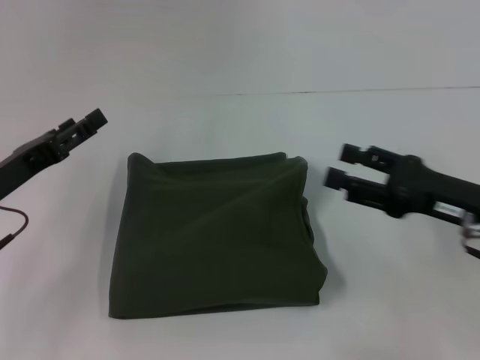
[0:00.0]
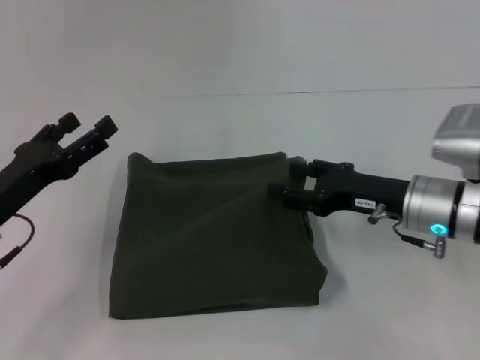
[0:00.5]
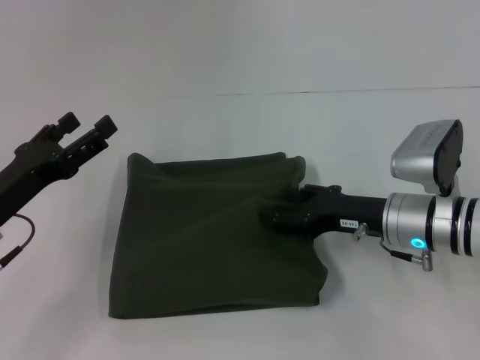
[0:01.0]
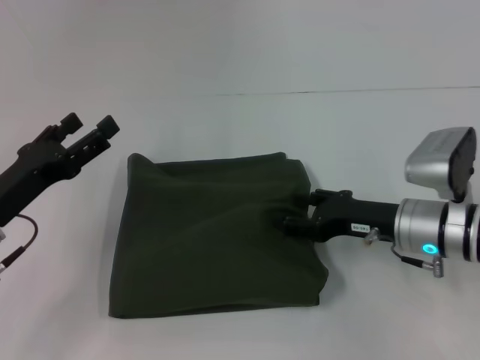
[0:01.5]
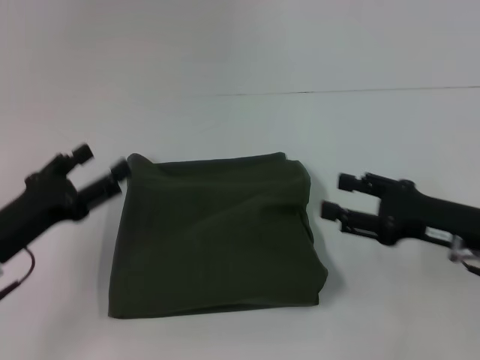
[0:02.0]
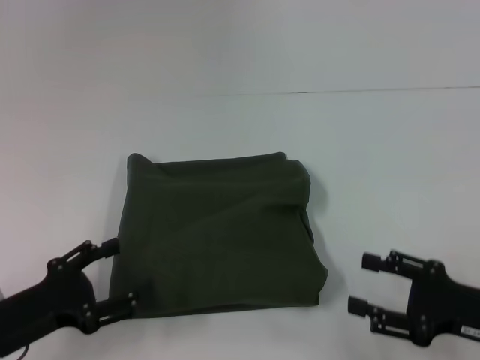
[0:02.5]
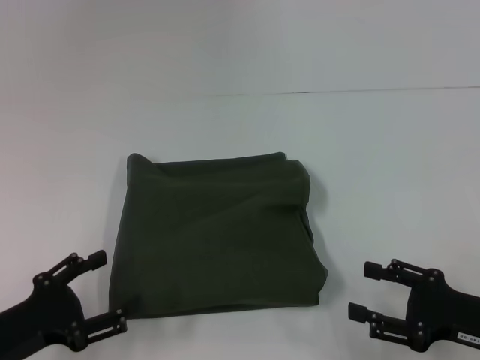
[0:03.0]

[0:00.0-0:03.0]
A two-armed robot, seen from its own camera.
0:00.0 to 0:01.5: The right gripper shifts approximately 5 cm to the left.
0:01.5 to 0:03.0: The left gripper moves backward, about 10 cm. Meanwhile the right gripper is displaced backward and to the right by some 15 cm.

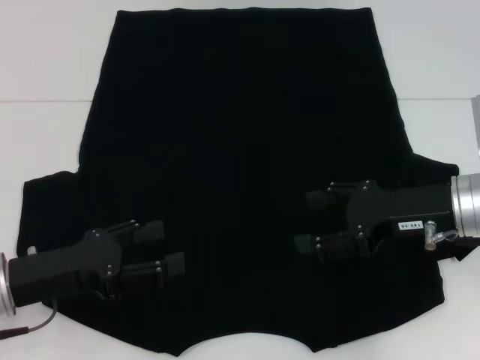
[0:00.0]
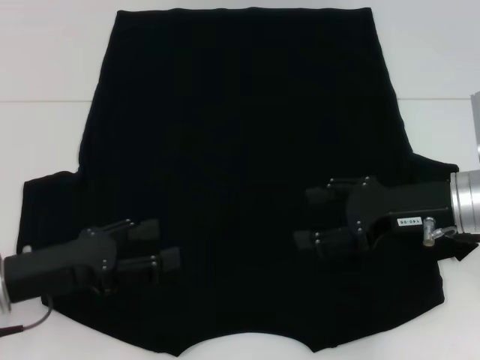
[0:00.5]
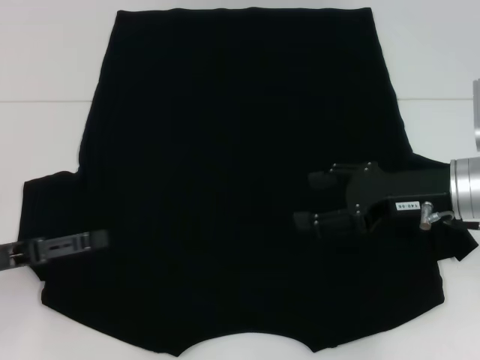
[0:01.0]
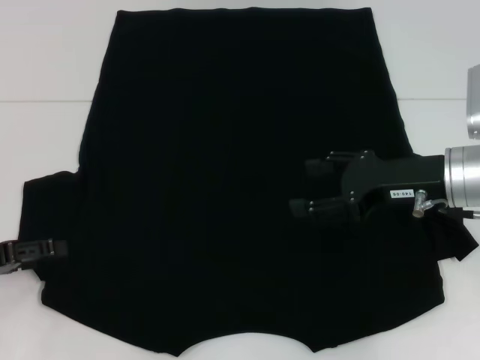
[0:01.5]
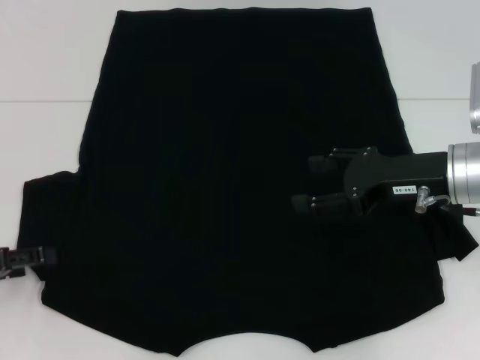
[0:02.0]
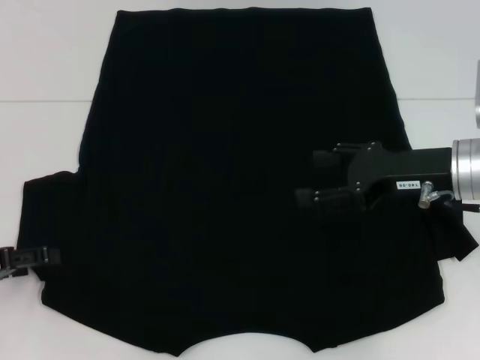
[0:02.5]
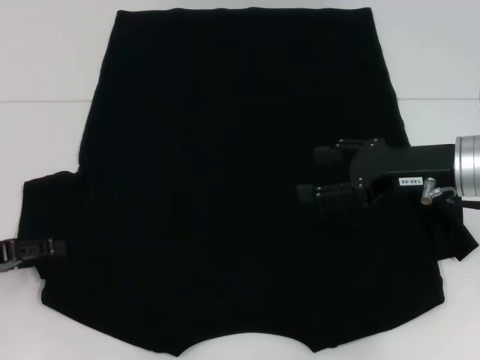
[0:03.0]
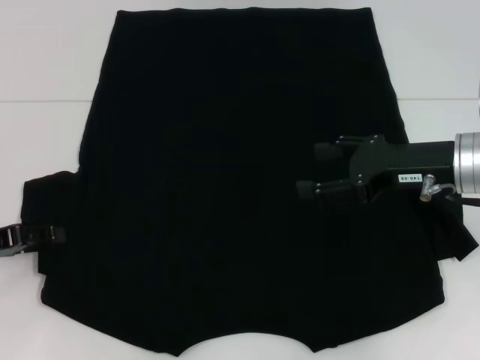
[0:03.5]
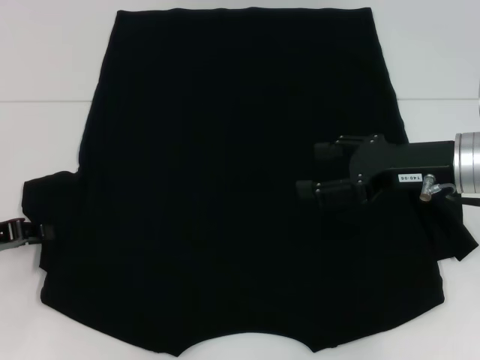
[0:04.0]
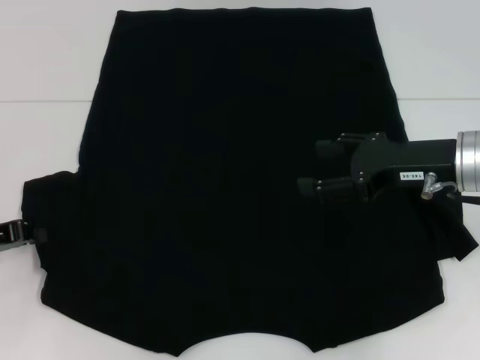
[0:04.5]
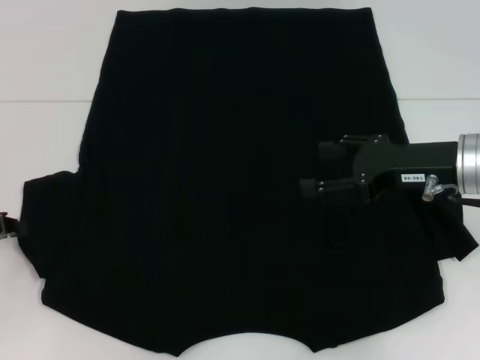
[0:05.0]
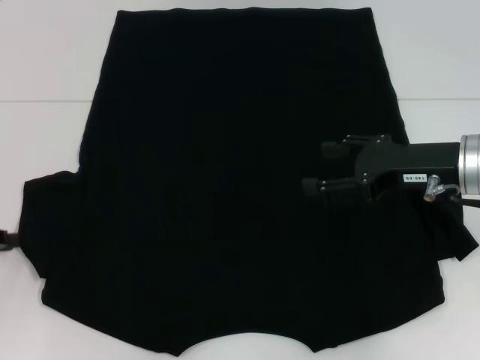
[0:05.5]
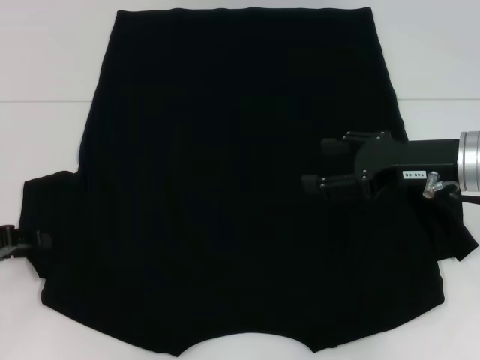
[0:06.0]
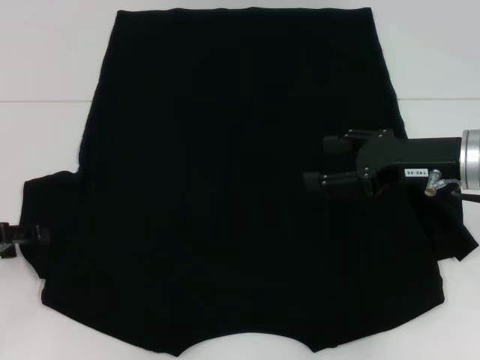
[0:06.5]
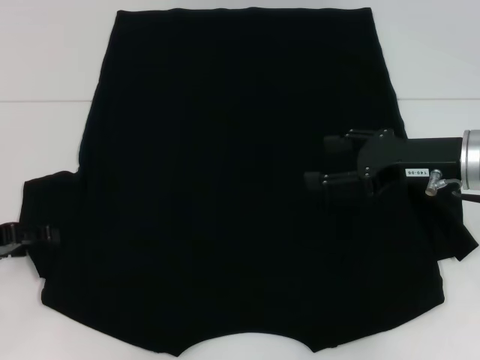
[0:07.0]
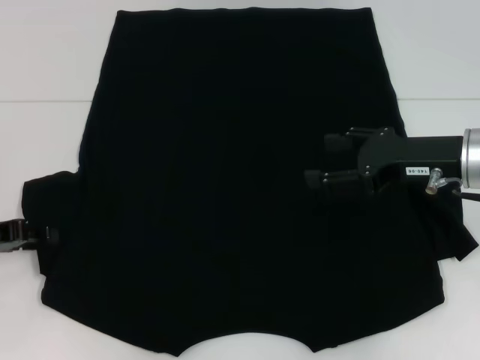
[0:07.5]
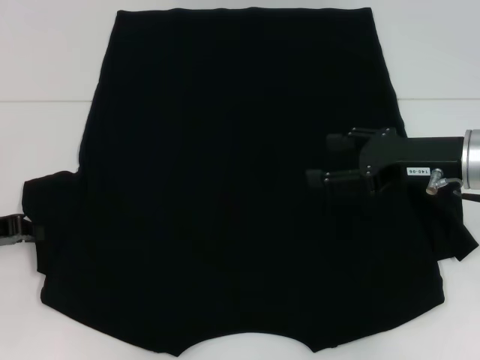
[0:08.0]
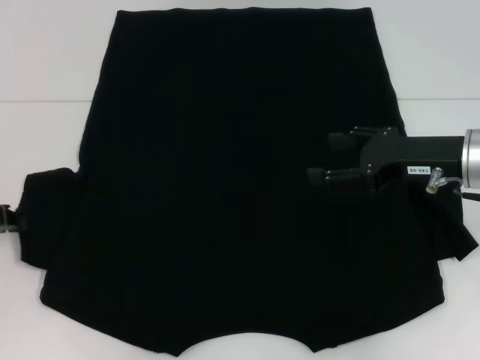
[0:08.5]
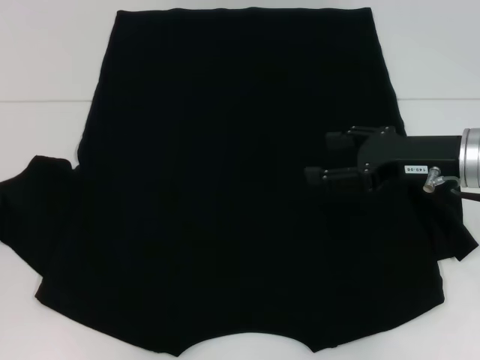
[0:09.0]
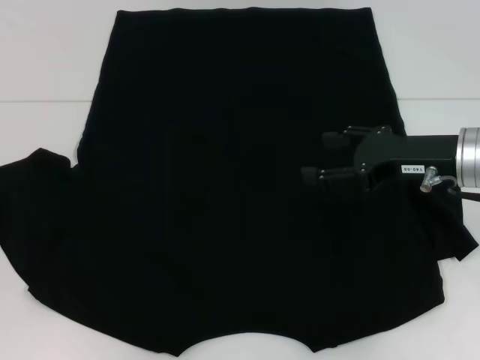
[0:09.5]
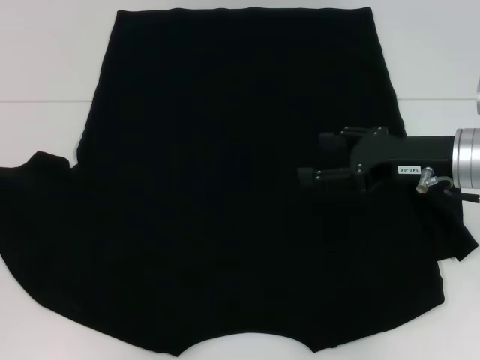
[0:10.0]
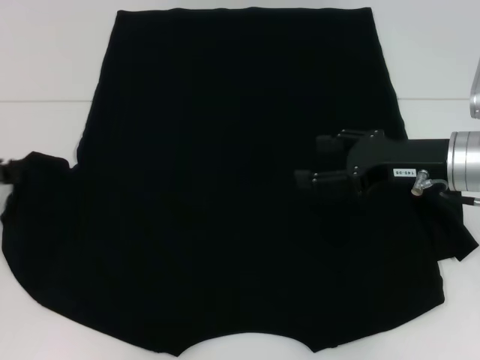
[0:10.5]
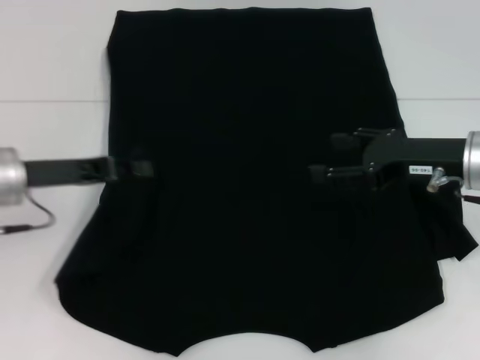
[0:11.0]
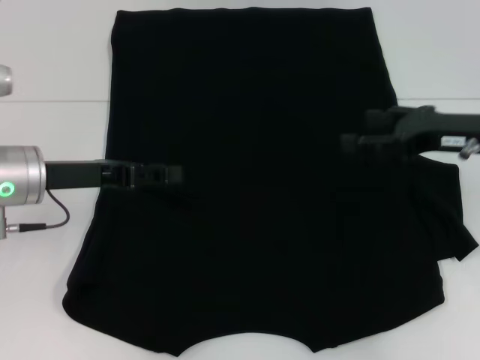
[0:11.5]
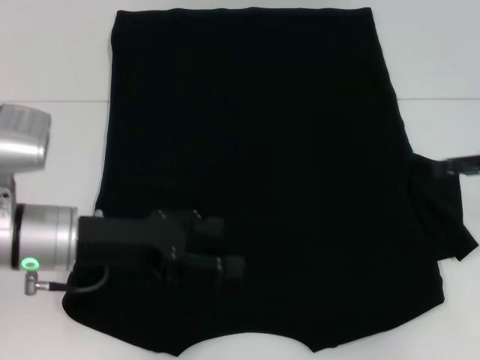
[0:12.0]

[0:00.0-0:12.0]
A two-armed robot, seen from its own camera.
Step, 0:00.0 to 0:11.5: Fold the bottom left sleeve with your left hand.
0:00.0 to 0:02.0: The left gripper moves to the left, about 10 cm.
0:02.0 to 0:04.0: The left gripper closes its fingers.
0:04.0 to 0:06.0: The left gripper closes, then opens again.
0:06.0 to 0:08.0: The left gripper opens, then closes once more.
0:08.0 to 0:10.0: The left gripper changes place by about 5 cm.
0:10.0 to 0:12.0: The grippers both shift to the right by roughly 15 cm. The left gripper opens up.

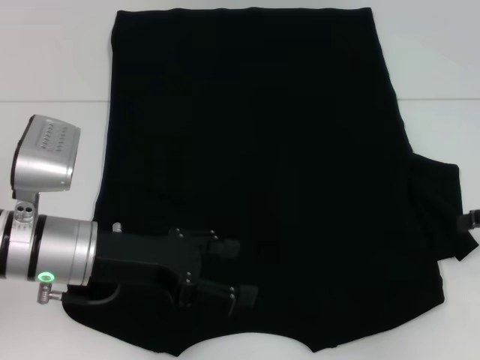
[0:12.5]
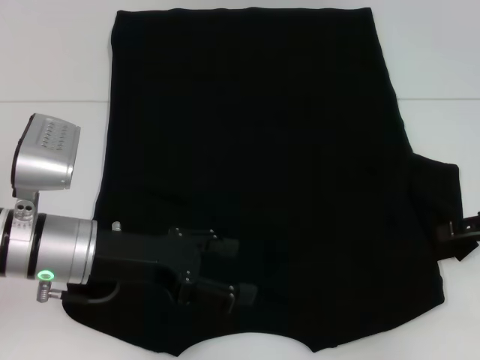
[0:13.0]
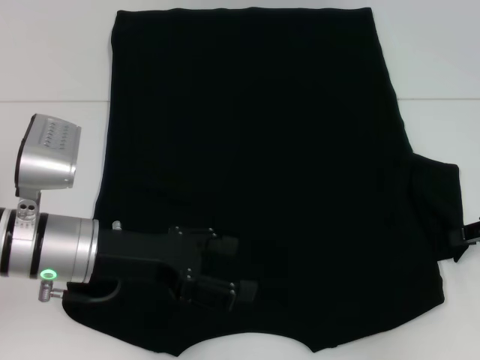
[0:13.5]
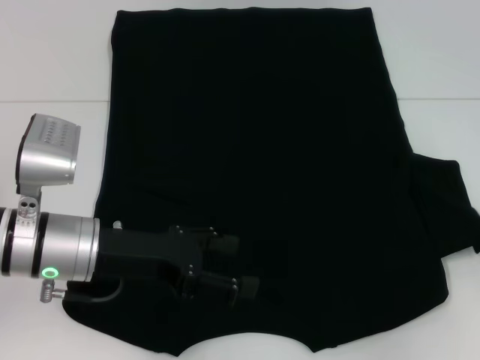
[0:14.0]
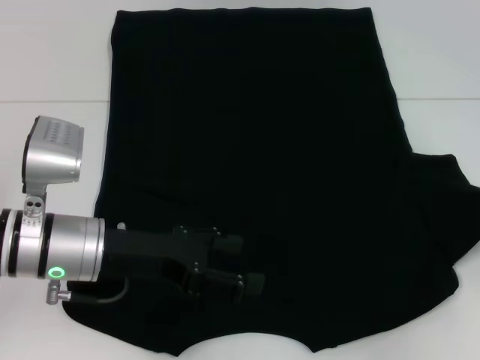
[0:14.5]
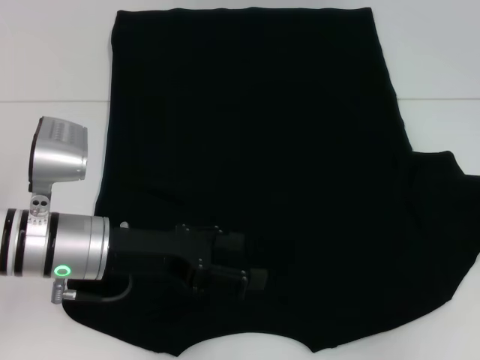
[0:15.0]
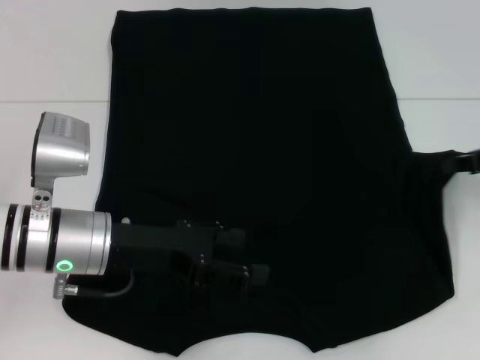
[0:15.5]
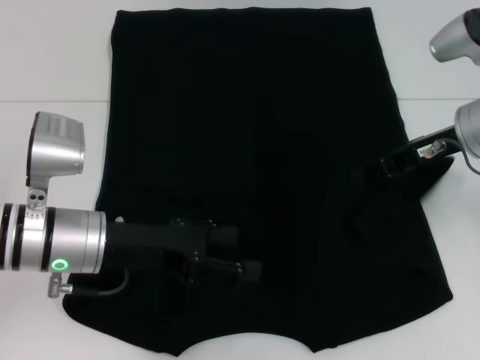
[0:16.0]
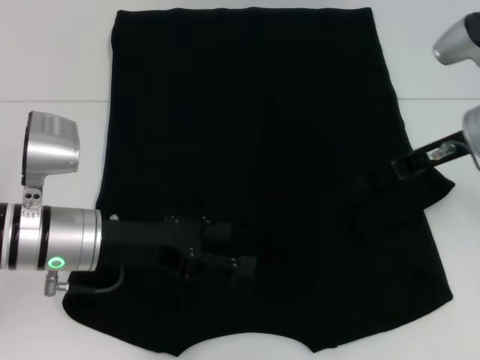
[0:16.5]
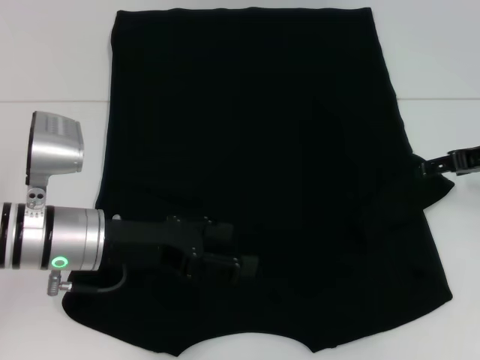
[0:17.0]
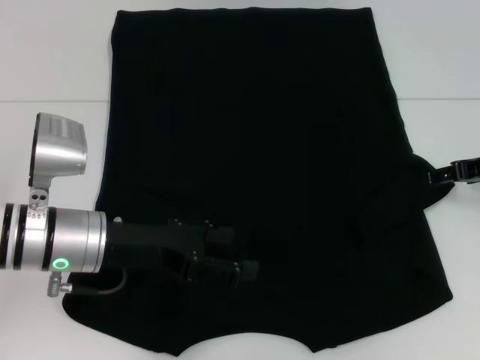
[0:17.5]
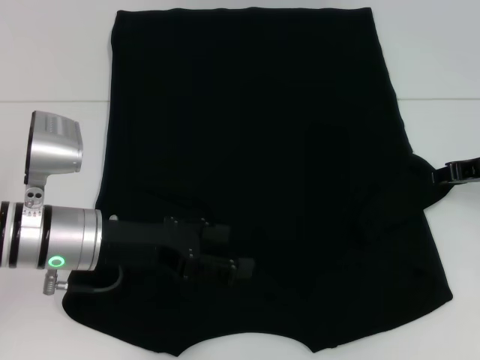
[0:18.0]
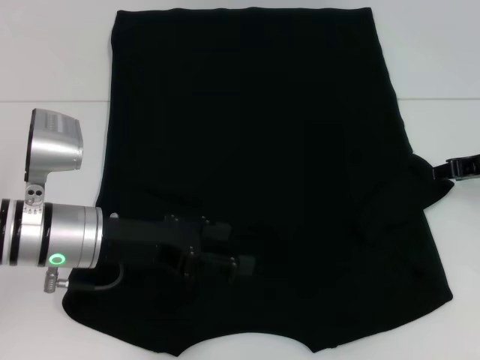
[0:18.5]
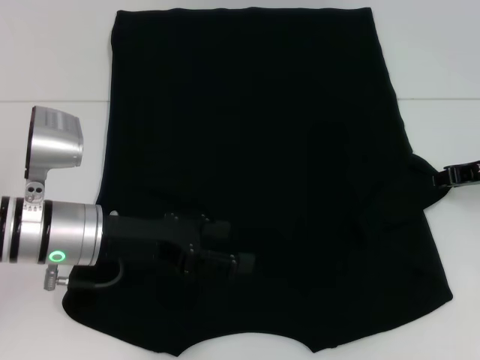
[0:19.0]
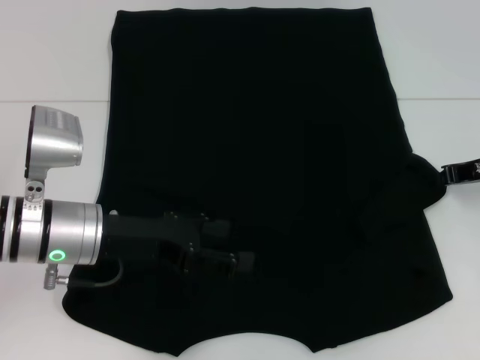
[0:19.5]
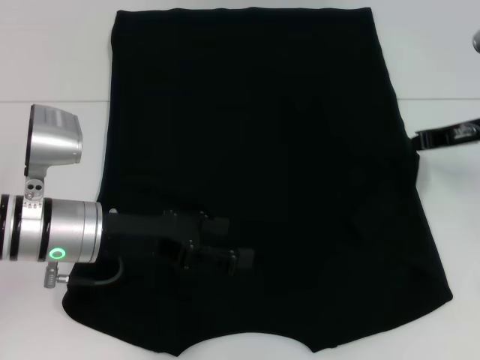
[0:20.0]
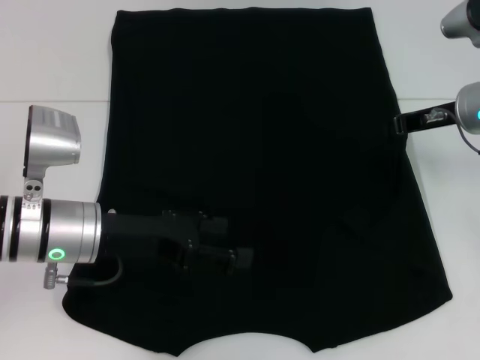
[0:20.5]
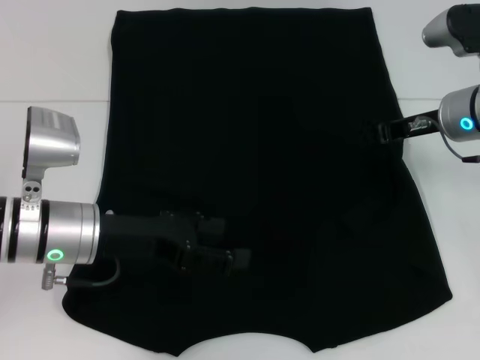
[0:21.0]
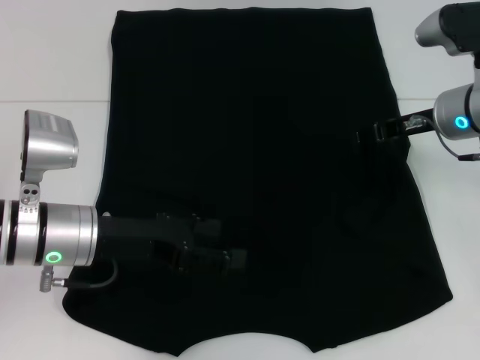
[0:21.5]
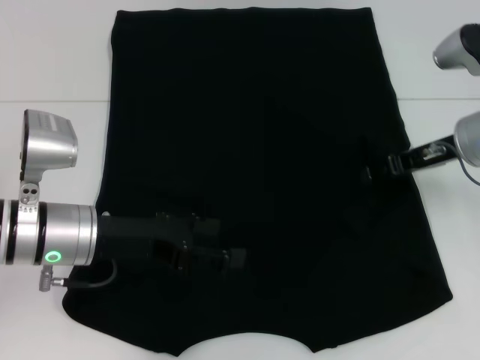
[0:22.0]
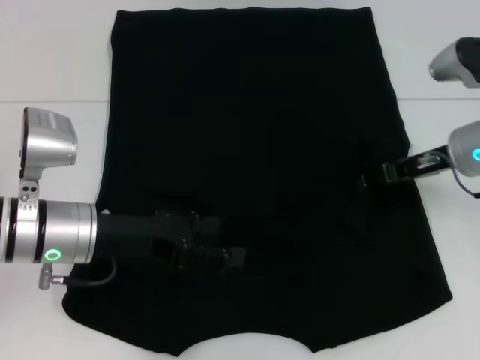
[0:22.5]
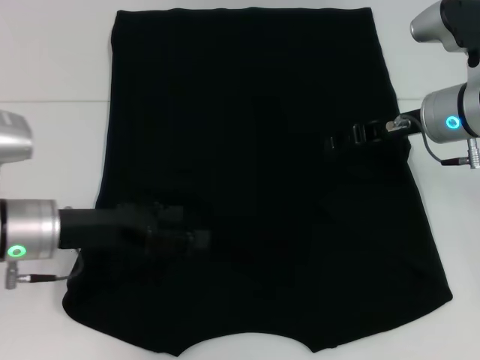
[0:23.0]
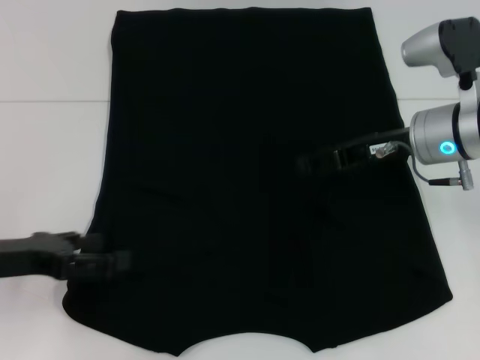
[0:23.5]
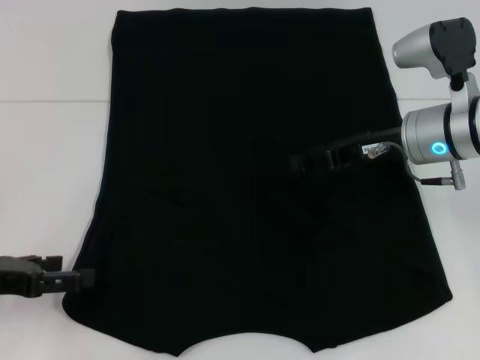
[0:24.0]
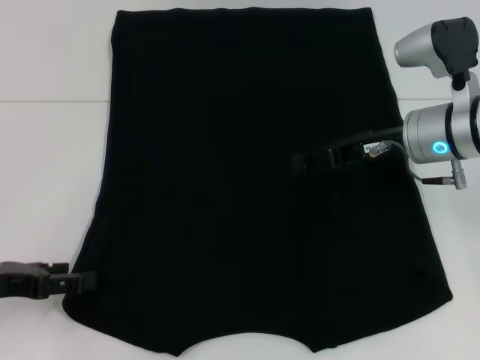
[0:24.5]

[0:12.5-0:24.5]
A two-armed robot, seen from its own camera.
Step, 0:12.5 to 0:22.0: Fold the bottom right sleeve with your right hand.
0:12.5 to 0:14.5: The right gripper closes its fingers.
0:14.5 to 0:16.5: The right gripper moves to the left and forward, about 15 cm, and opens its fingers.
0:16.5 to 0:18.5: The right gripper goes roughly 5 cm to the right, and opens and closes again.
0:18.5 to 0:20.5: The right gripper shifts approximately 5 cm to the left, and closes.
0:20.5 to 0:22.5: The right gripper opens up.
0:22.5 to 0:24.5: The left gripper travels to the left and backward by about 15 cm.
